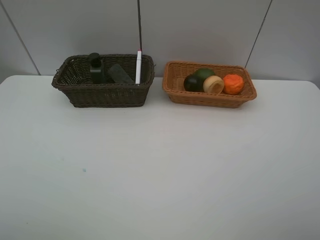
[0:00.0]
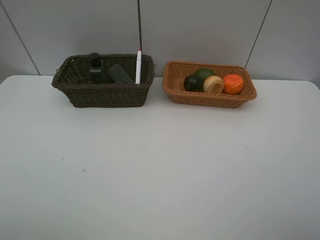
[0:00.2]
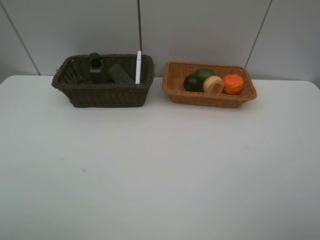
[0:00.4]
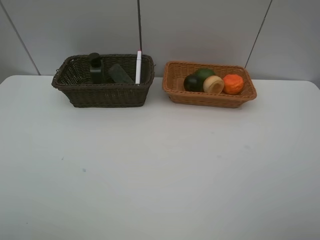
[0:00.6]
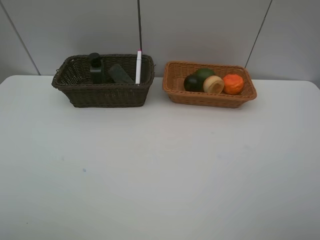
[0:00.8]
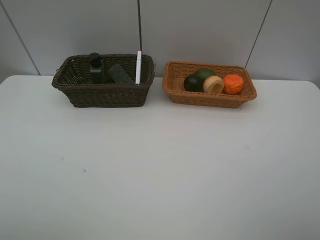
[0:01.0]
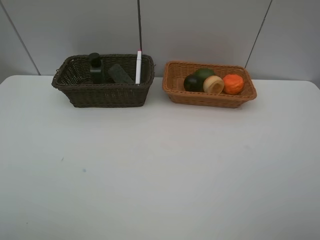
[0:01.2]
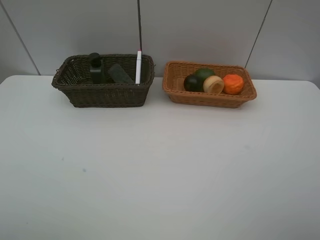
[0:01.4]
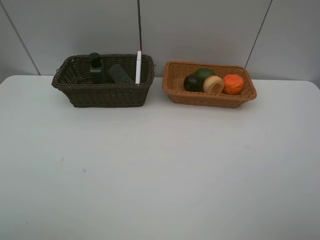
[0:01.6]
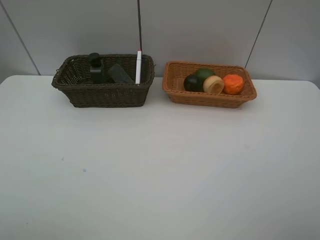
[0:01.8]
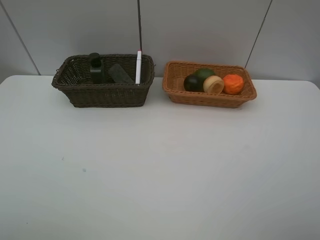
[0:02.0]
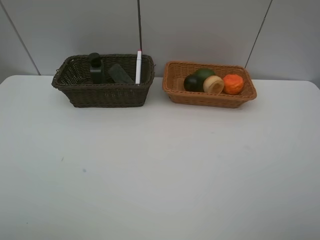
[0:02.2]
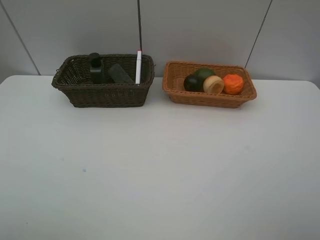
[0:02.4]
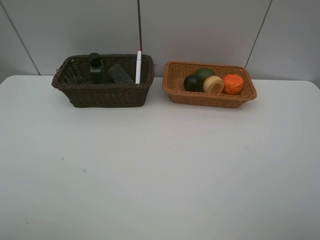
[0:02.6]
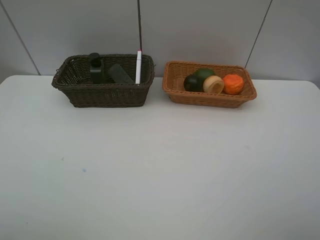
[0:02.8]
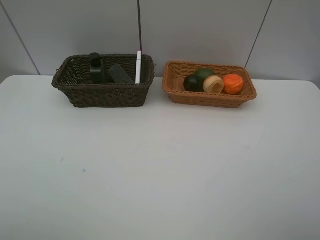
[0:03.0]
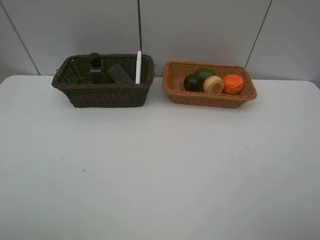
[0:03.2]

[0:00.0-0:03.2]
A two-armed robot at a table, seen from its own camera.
Task of the whole recording: Place multiple objects separately in different baskets.
0:01.6 to 0:03.2: Both grippers stay put.
